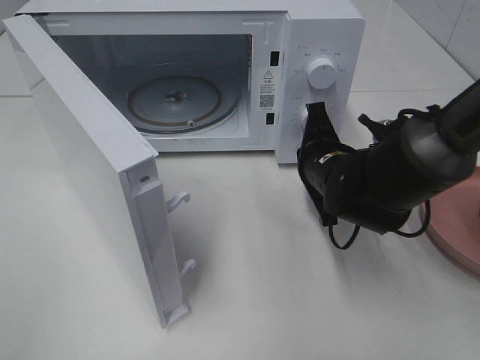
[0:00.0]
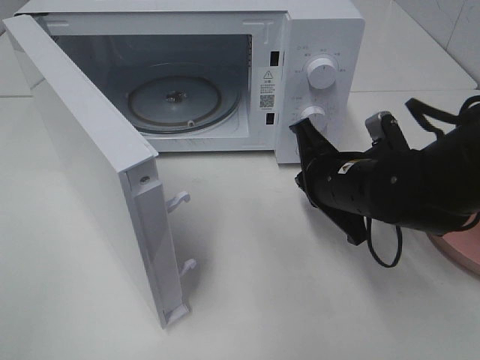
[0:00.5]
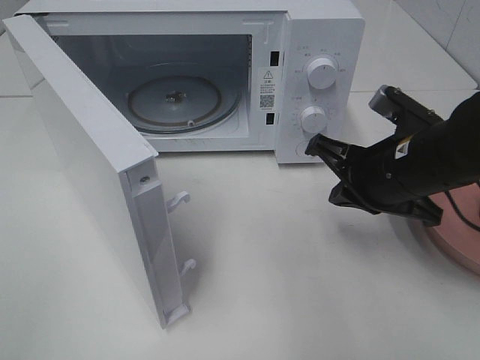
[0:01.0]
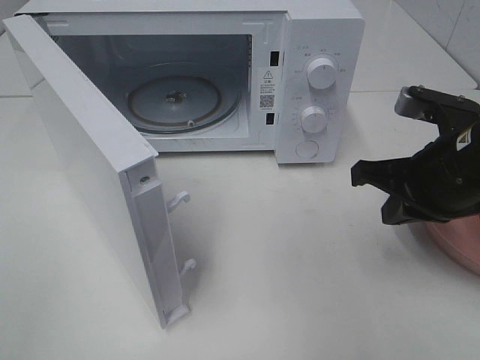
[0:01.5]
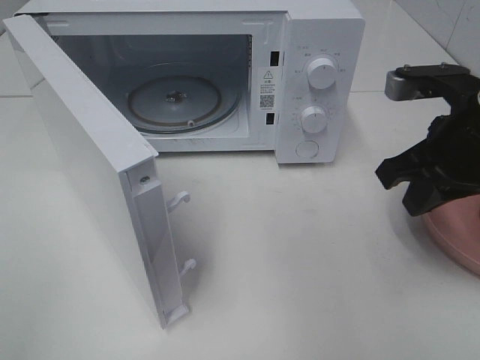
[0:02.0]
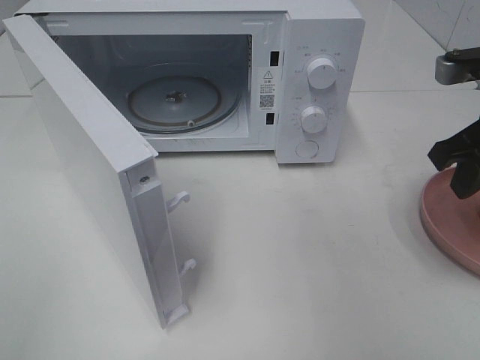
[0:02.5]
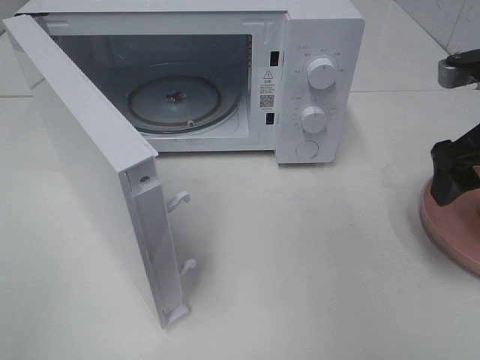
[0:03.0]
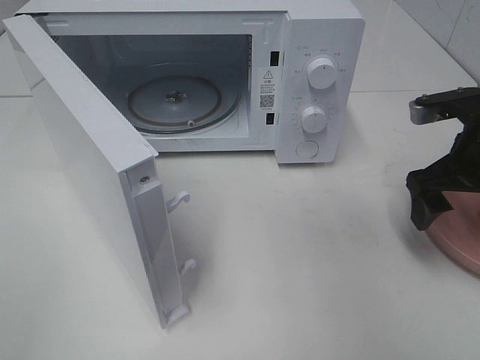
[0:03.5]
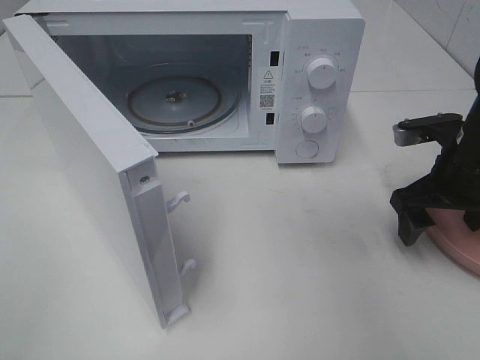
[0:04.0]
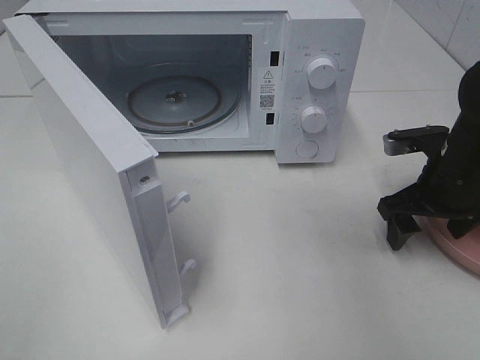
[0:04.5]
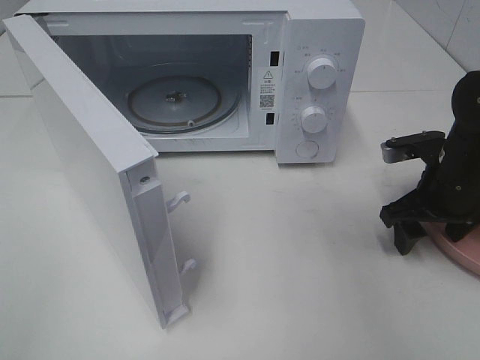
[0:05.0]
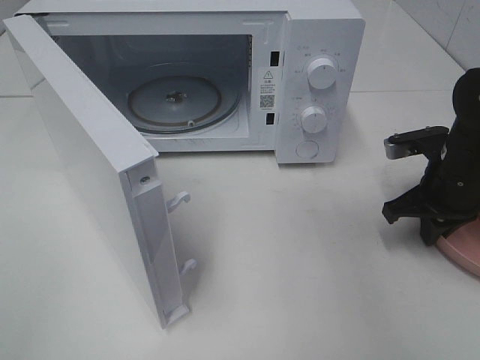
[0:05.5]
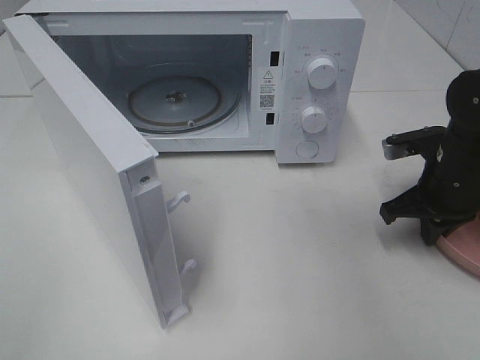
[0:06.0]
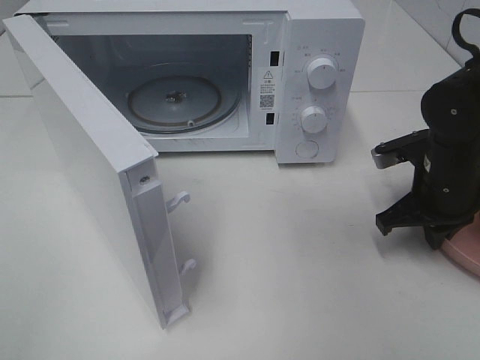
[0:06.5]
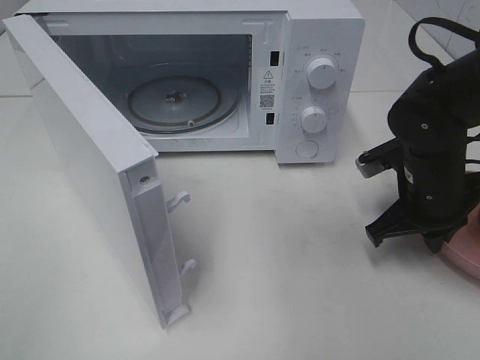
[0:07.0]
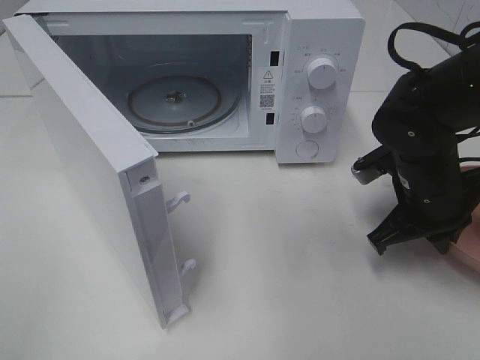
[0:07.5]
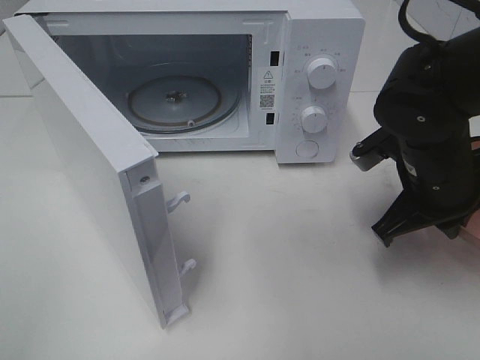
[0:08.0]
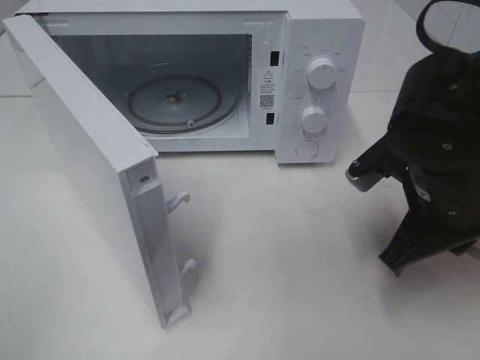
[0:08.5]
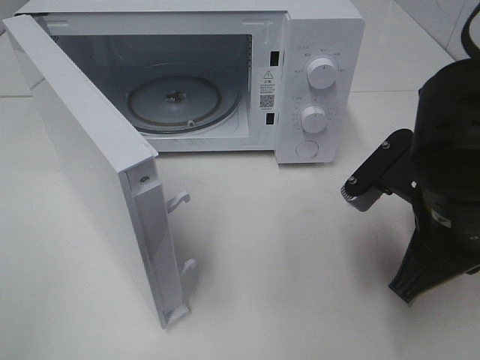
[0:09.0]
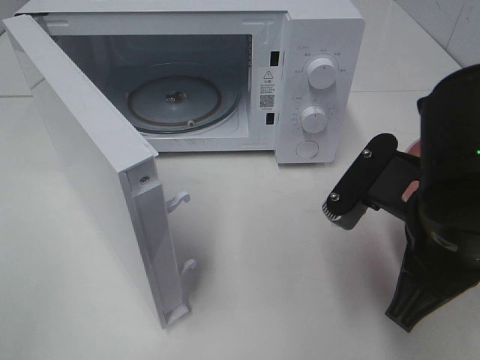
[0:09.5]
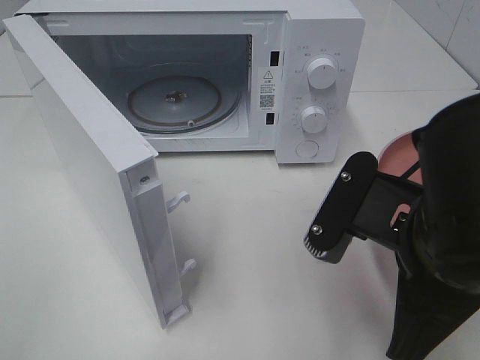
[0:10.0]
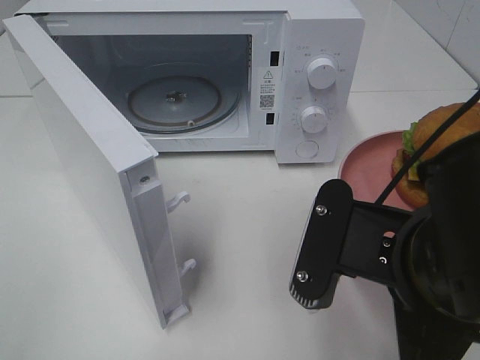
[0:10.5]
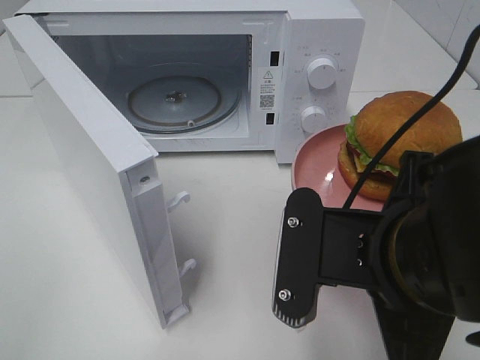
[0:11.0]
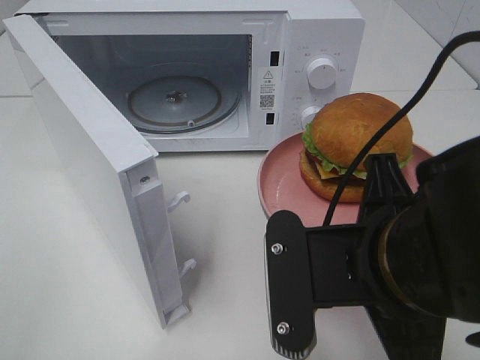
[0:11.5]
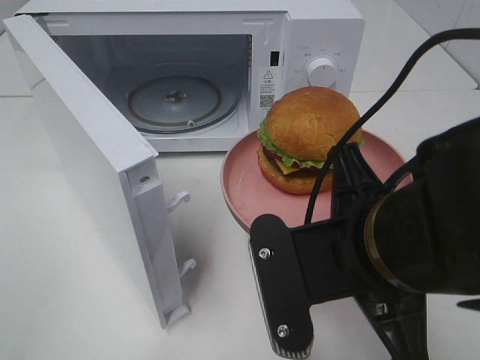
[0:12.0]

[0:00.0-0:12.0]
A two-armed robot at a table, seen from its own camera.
Task of the whole recording: Heat the burger.
Step, 0.0 to 5.5 s: Right hand: grab the plate with the hamburger.
0.0 to 2.0 s: The right gripper moves upward, to the right and backward, some 15 cm.
2.0 to 4.0 s: The right gripper shifts about 10 cm downward and forward, and opens.
4.0 to 6.0 s: The right gripper closes up.
6.0 to 8.0 s: The right gripper is displaced to the left by about 5 cm.
8.0 to 10.0 s: The right gripper moves backward and to the left, approximately 15 cm.

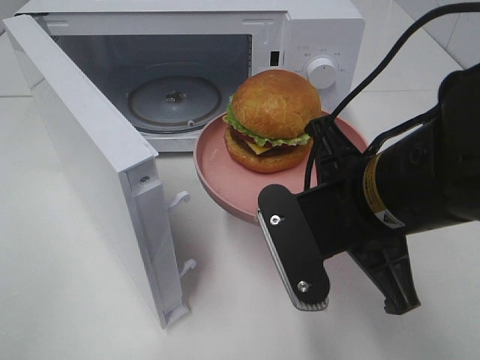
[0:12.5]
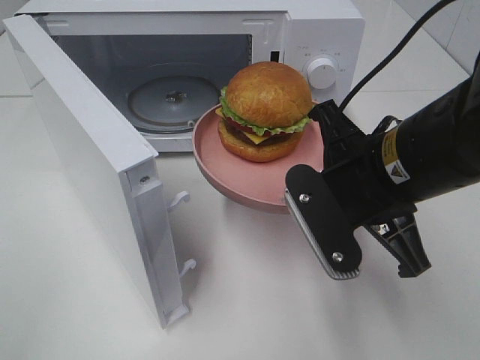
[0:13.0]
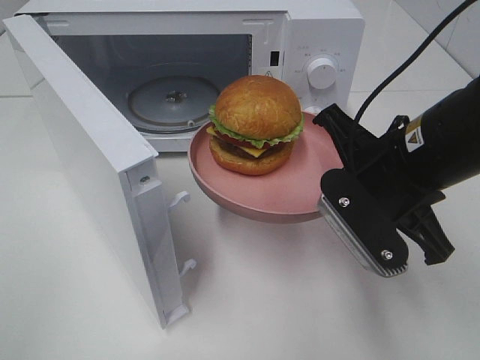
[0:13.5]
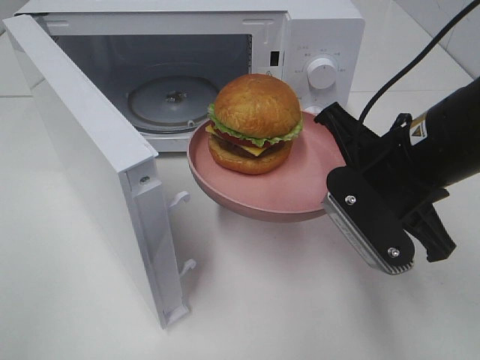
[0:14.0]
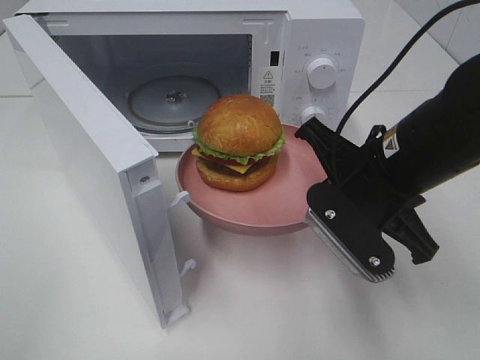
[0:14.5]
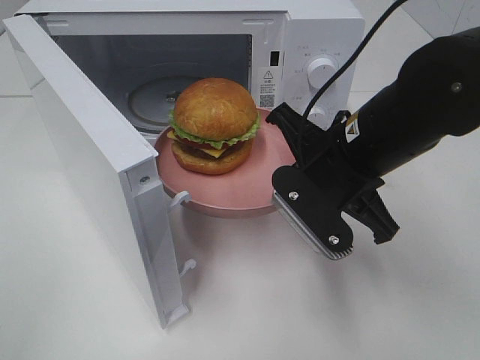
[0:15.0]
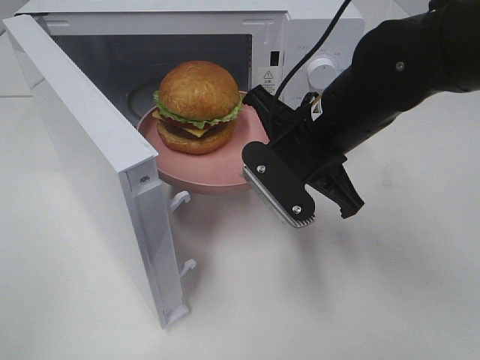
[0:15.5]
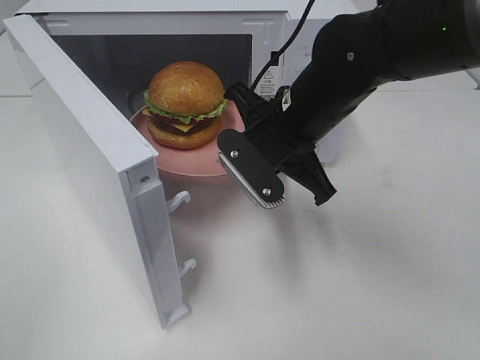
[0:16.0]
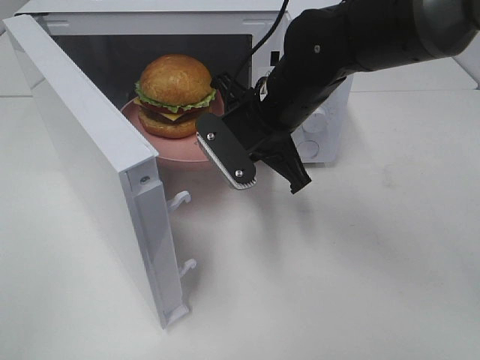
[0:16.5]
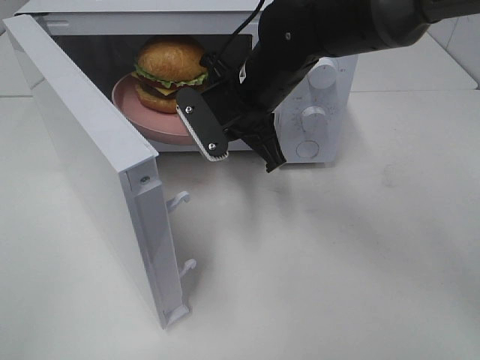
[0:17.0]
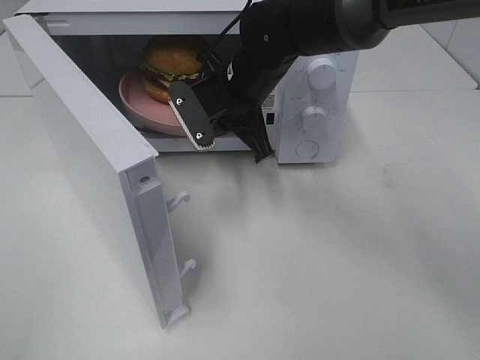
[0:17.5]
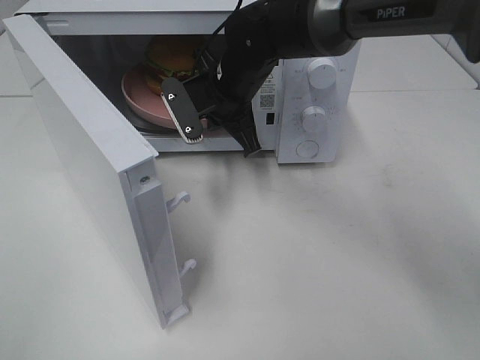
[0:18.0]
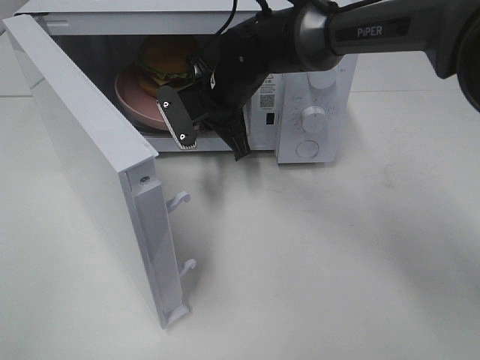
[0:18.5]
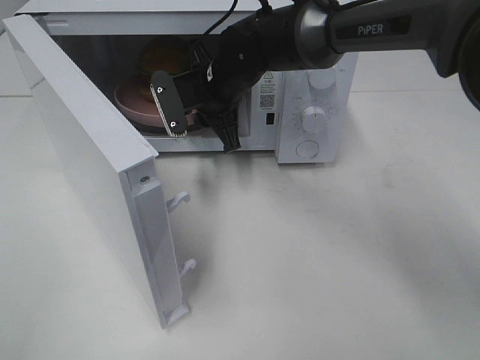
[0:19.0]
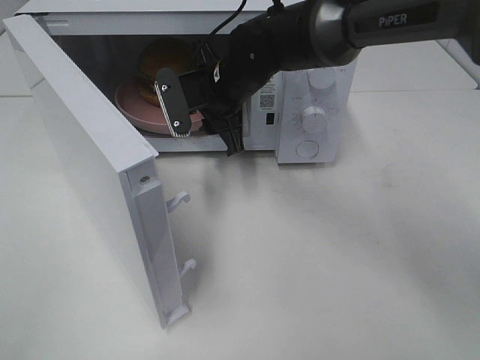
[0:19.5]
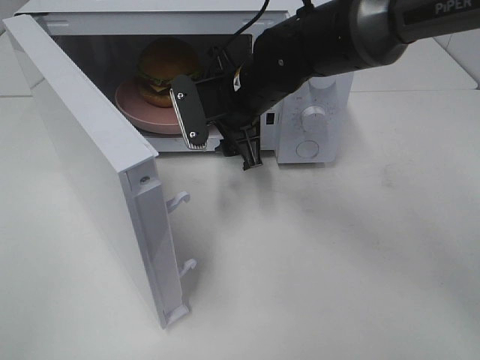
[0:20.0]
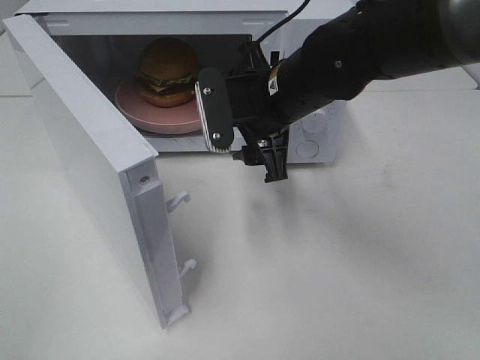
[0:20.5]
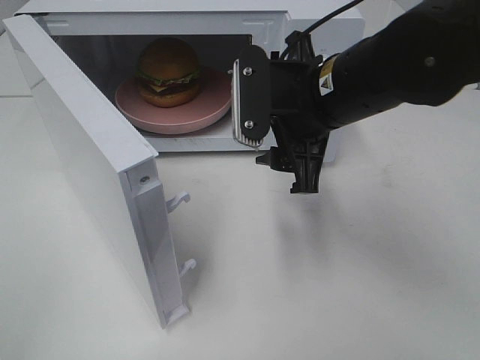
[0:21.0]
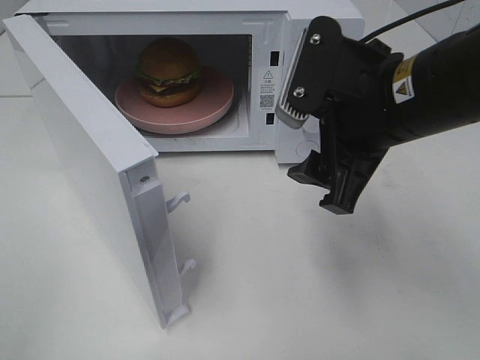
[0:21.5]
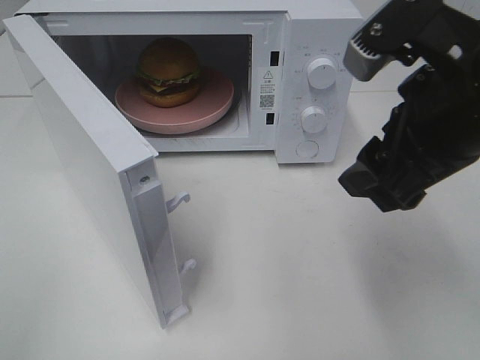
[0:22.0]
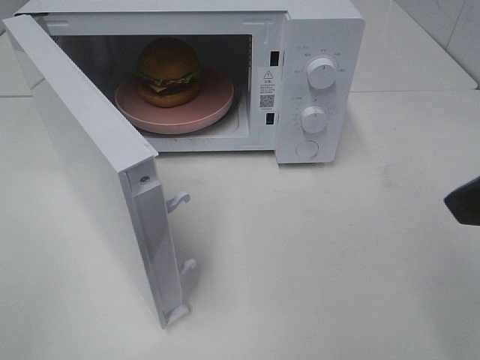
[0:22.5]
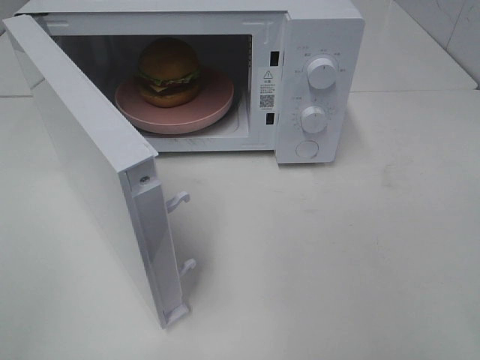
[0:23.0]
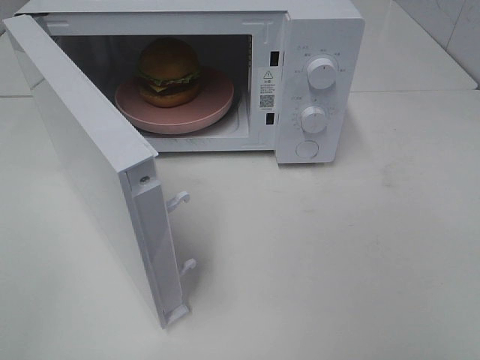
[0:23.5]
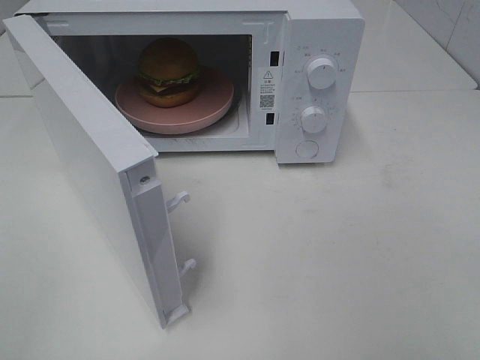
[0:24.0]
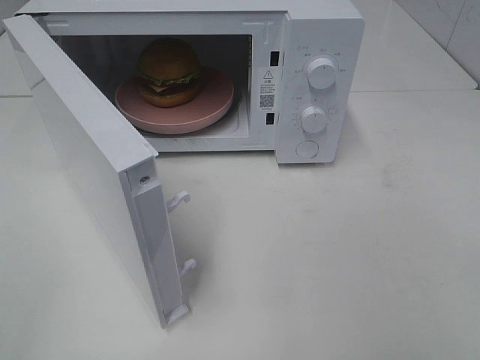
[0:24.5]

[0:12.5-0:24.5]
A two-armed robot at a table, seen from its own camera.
Task of the whole recording: Heat the burger.
Step, 12.5 to 19.0 s: Right hand: place the plate in the microwave.
12.5 to 14.5 s: The right gripper shifts some 5 cm forward.
14.5 to 16.5 s: The right gripper moves forward and to the left, some 15 cm.
16.5 to 18.5 s: The right gripper goes some 10 cm forward and to the left.
18.5 to 20.5 s: The right gripper shifts approximately 10 cm backward and to the right, and opens up.
20.5 to 22.5 s: The right gripper moves backward, to the right and upward, about 30 cm.
22.5 to 24.5 s: The right gripper travels backward and to the right by roughly 15 cm.

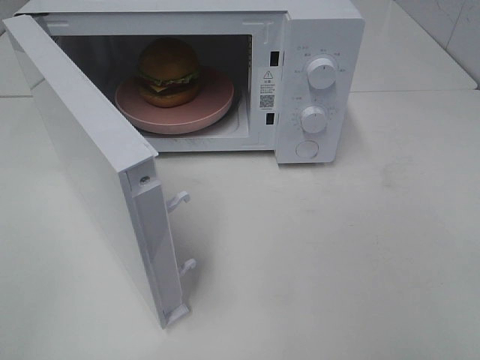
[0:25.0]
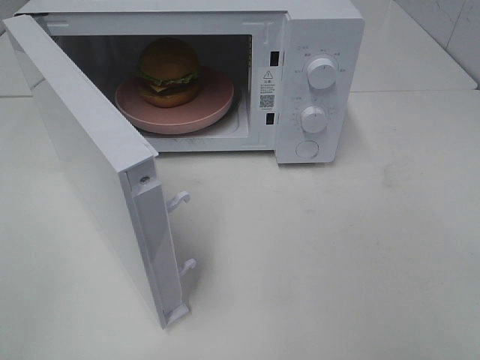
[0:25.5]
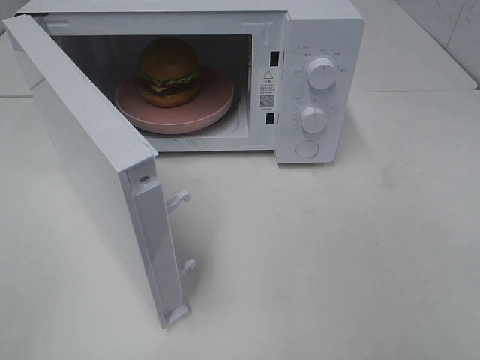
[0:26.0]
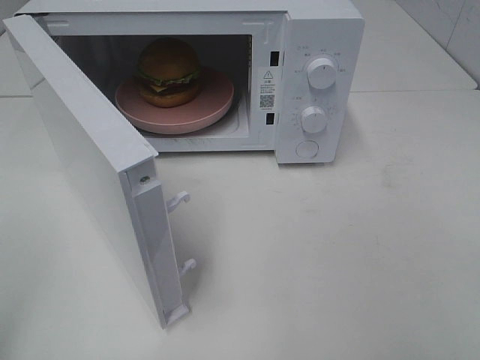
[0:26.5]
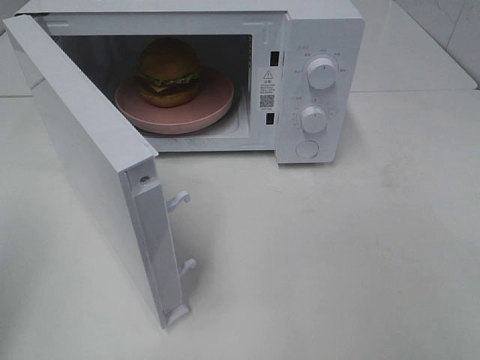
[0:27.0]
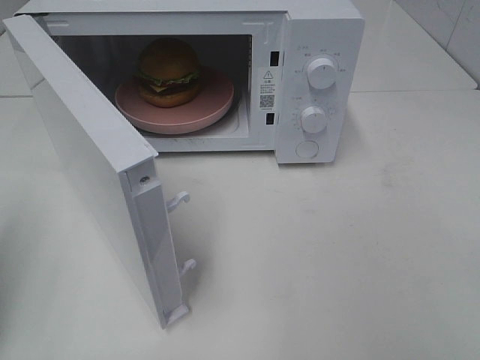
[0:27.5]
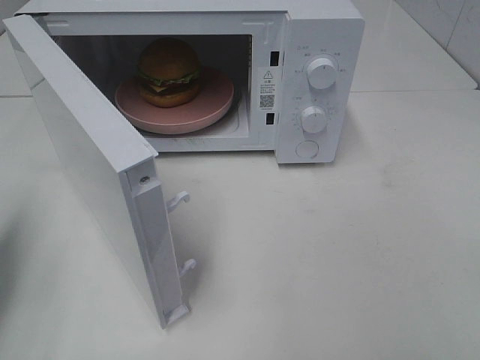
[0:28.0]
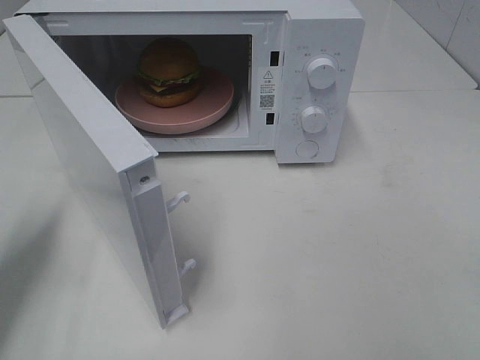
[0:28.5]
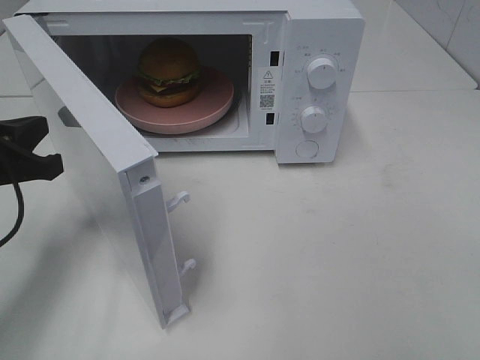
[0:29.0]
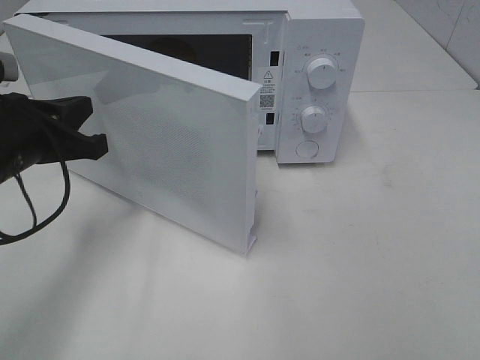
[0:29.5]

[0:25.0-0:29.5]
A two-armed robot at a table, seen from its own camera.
Task of the whole recording: Heat the burger.
27.0 to 29.5 s: The left gripper moves forward, downward and to the right, some 25 cm.
